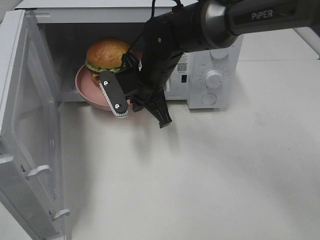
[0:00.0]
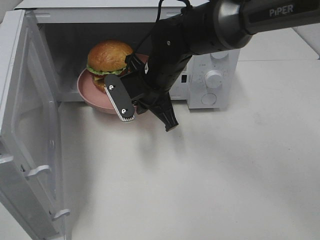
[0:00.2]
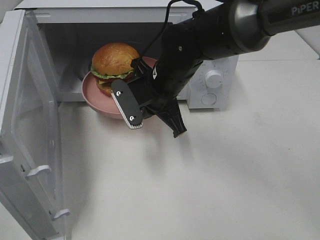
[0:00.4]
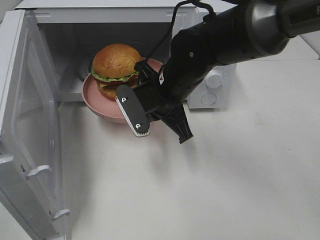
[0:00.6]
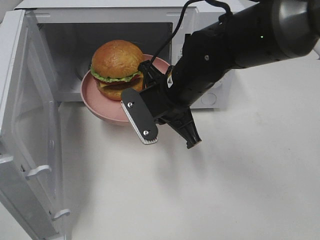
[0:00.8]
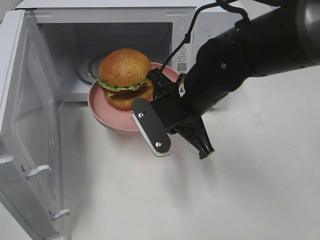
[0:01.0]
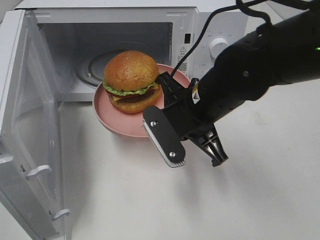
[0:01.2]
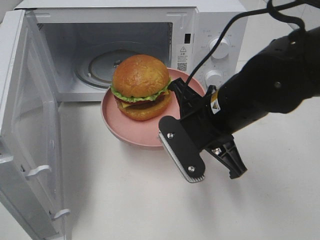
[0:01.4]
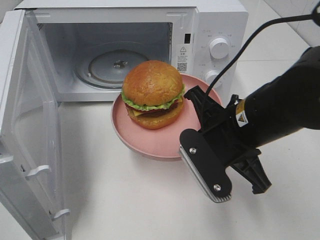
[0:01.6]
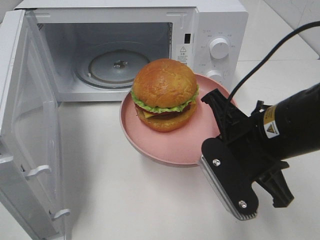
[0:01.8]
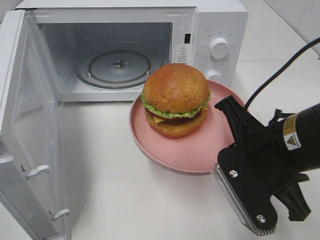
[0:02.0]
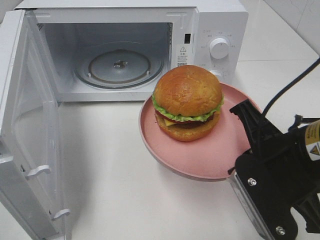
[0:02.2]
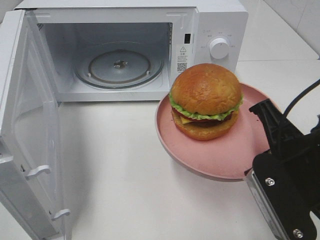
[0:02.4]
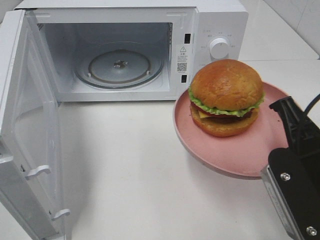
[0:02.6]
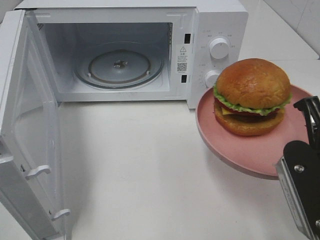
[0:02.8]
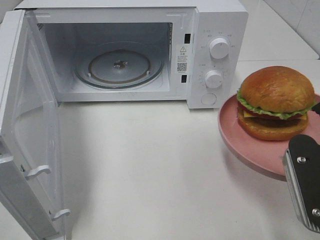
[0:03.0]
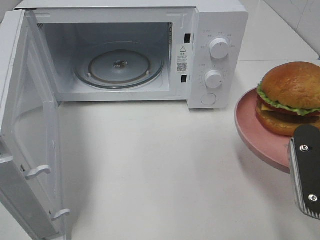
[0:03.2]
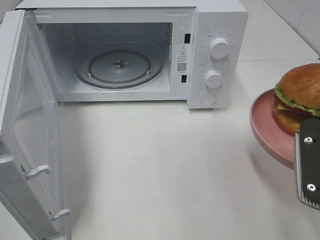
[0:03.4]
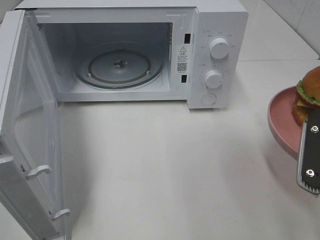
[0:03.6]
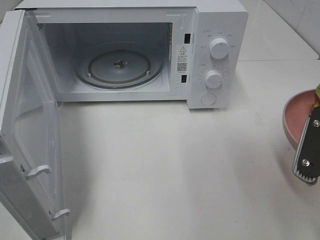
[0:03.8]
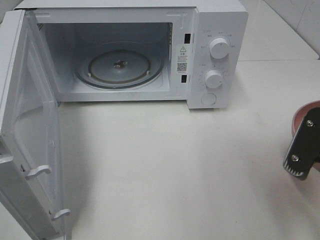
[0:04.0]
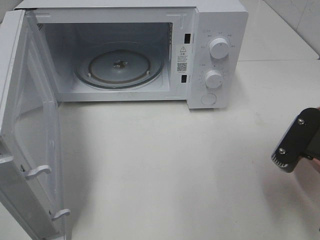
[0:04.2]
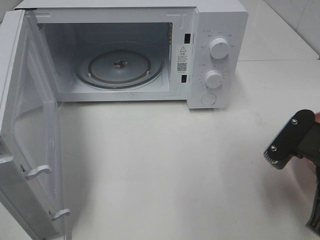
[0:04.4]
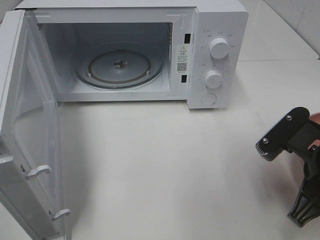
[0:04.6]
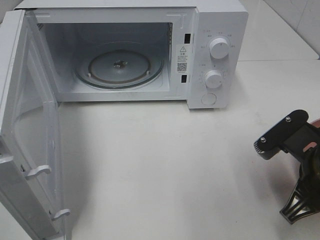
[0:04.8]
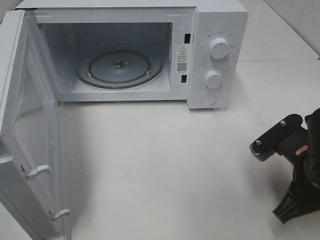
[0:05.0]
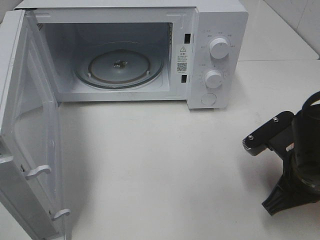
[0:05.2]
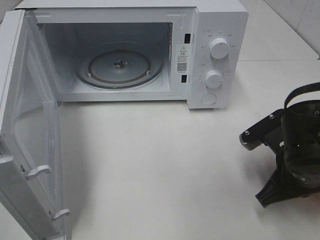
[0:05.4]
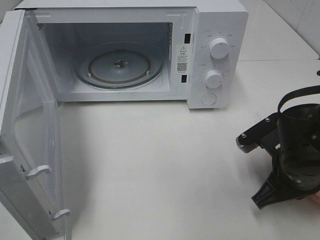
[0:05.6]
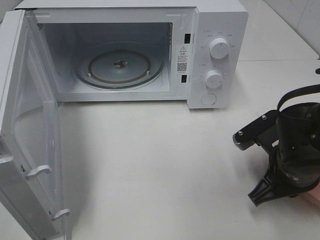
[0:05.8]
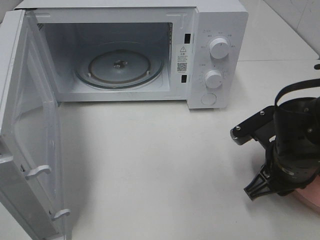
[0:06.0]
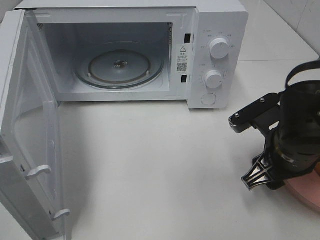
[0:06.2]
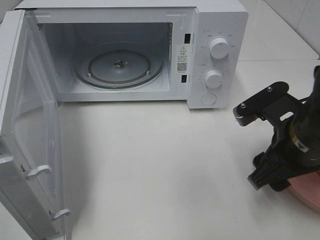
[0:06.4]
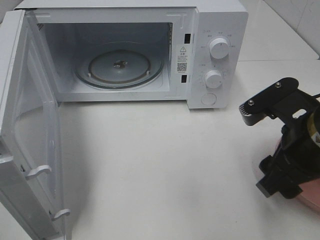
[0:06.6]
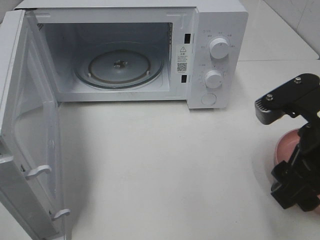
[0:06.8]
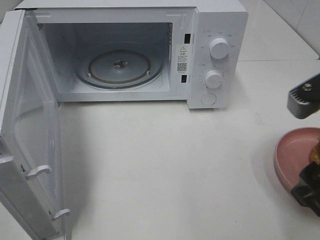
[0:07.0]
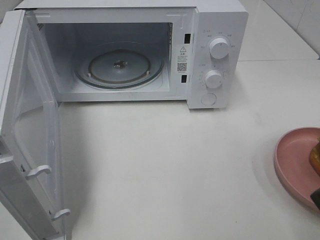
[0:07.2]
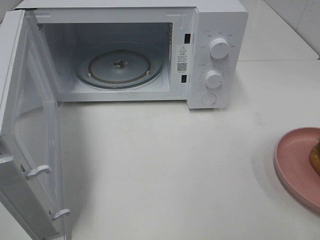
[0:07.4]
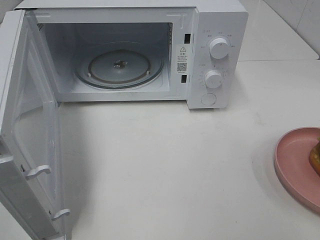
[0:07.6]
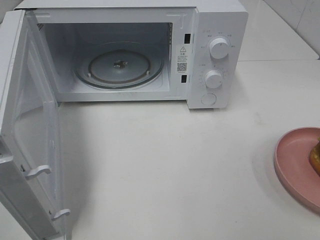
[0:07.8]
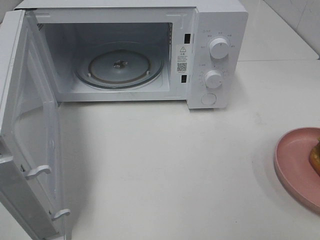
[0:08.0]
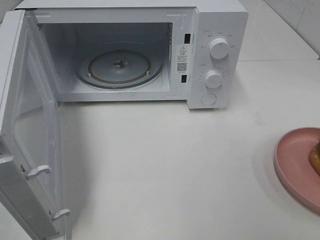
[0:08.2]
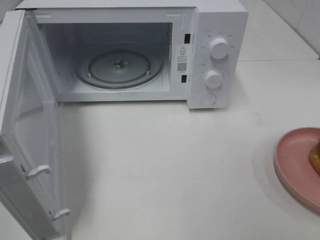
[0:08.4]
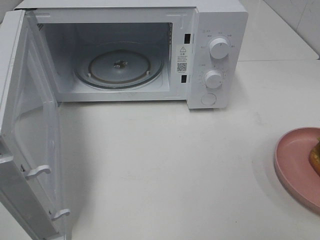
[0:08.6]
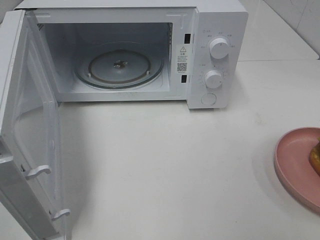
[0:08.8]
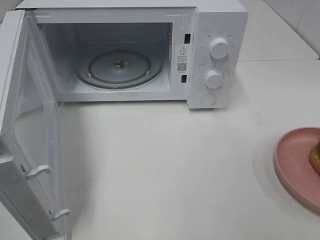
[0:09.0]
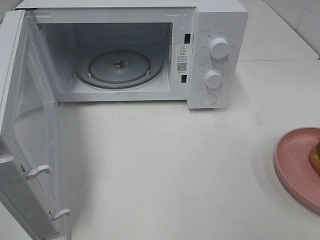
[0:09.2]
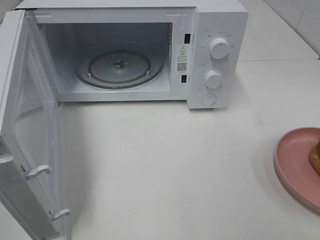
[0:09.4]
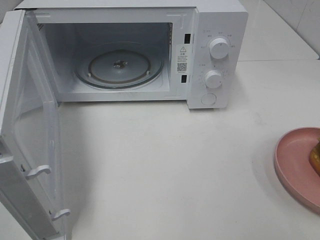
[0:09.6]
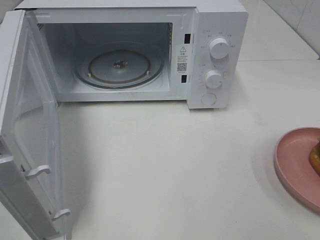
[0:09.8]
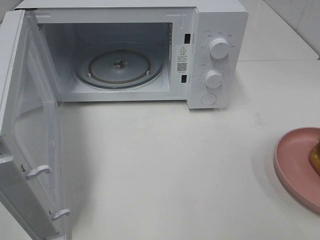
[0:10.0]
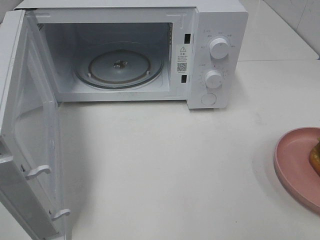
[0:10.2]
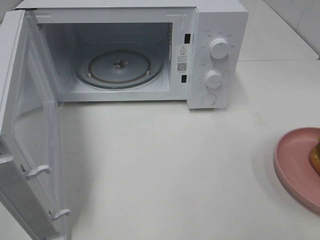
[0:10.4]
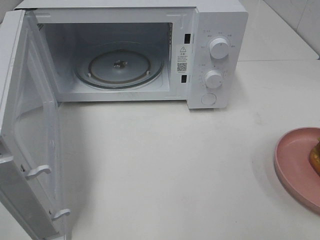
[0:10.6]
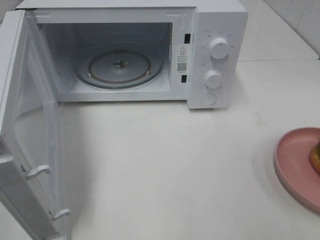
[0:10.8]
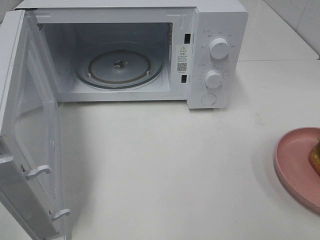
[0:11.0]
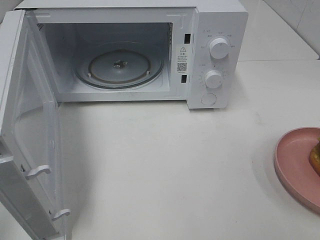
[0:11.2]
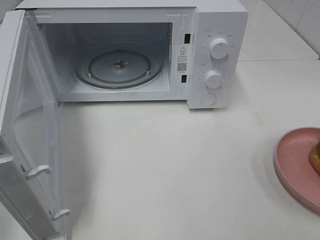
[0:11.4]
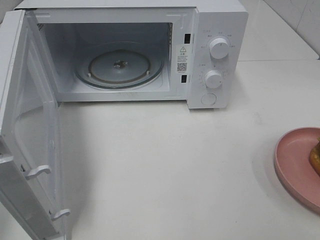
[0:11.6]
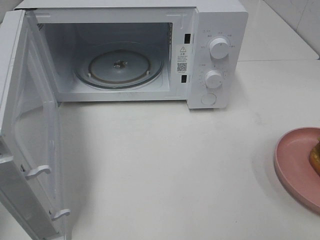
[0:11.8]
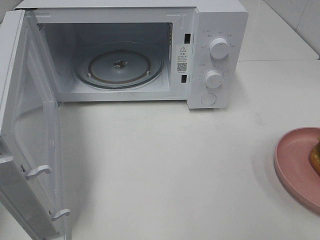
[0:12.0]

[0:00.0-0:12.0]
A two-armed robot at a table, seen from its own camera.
Task of the whole recording: Heat the burger.
Step, 0.0 to 6.0 s: Right hand: place the plate on the table.
0.0 to 1.6 s: The right gripper moves backward and to the right, approximately 20 cm.
1.6 to 3.0 s: The right gripper goes about 15 cm to the right and backward.
3.0 to 4.4 s: The right gripper moves some 5 cm.
4.4 to 6.0 s: The right gripper heads downward and forward, covering some 10 cm, and opens up.
6.0 to 7.6 s: The right gripper is displaced upward, backward and to the right by about 25 cm, and opens up.
9.0 to 10.4 s: Neither gripper changes place.

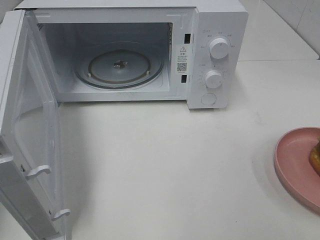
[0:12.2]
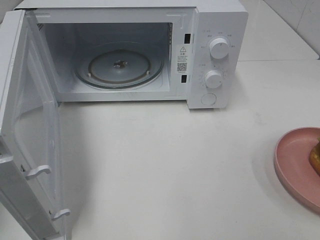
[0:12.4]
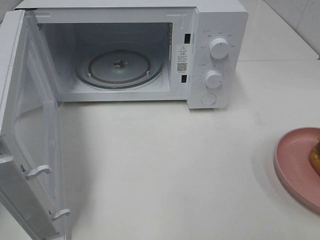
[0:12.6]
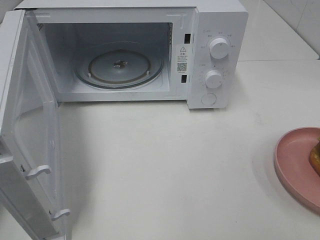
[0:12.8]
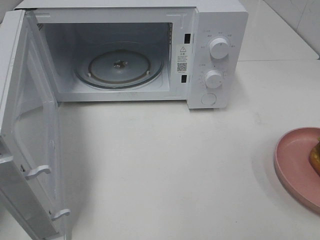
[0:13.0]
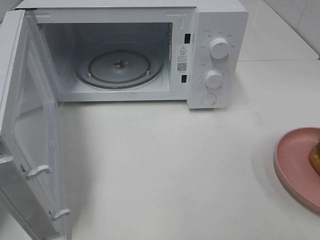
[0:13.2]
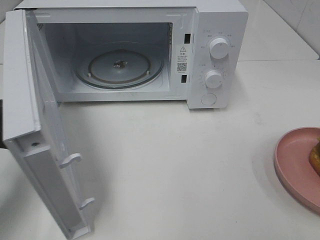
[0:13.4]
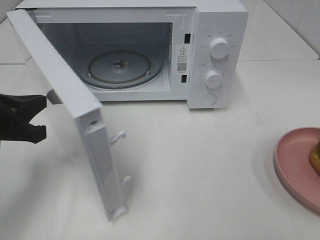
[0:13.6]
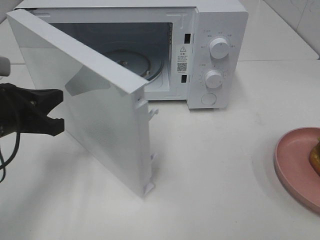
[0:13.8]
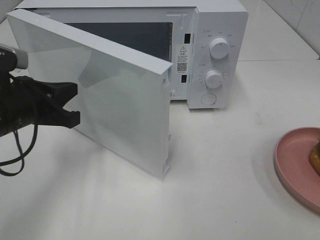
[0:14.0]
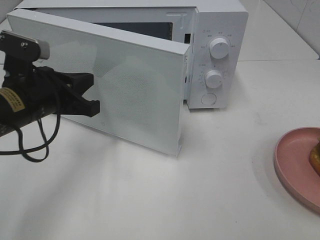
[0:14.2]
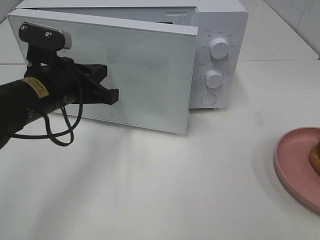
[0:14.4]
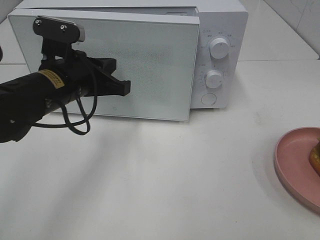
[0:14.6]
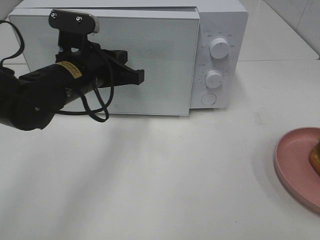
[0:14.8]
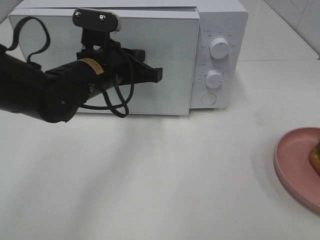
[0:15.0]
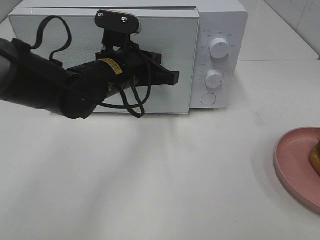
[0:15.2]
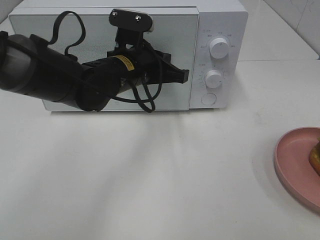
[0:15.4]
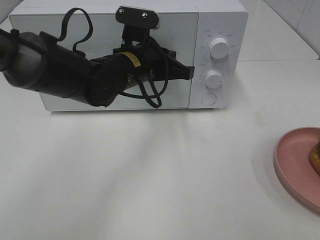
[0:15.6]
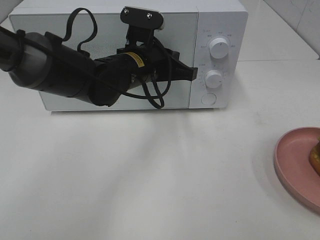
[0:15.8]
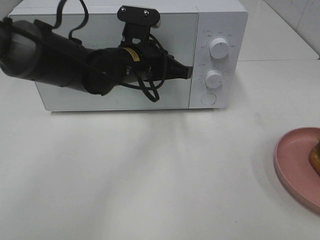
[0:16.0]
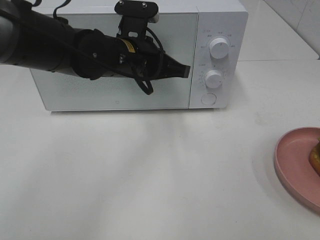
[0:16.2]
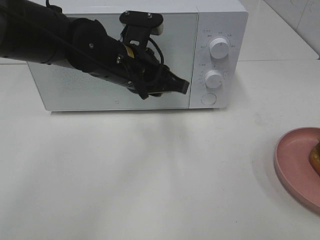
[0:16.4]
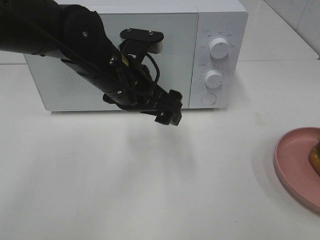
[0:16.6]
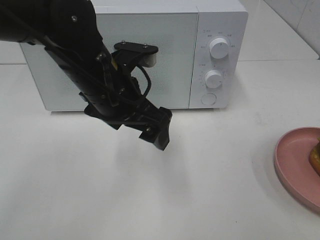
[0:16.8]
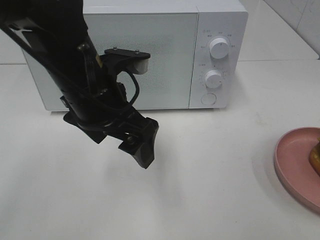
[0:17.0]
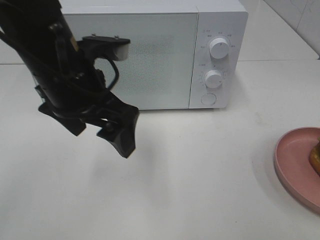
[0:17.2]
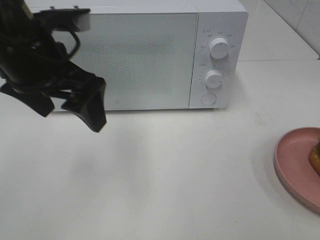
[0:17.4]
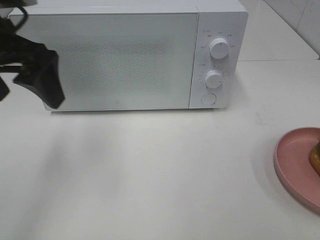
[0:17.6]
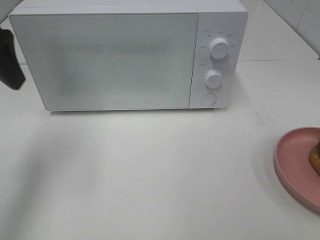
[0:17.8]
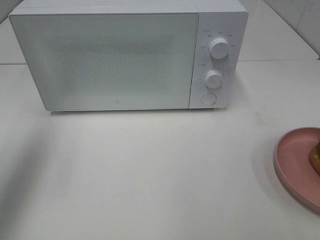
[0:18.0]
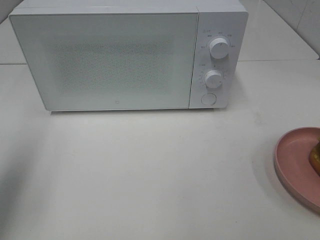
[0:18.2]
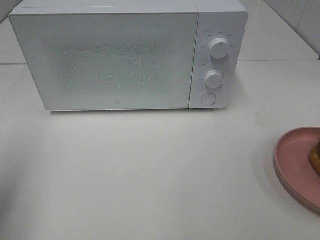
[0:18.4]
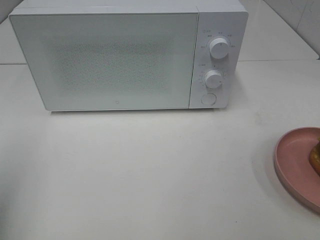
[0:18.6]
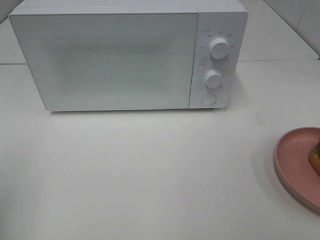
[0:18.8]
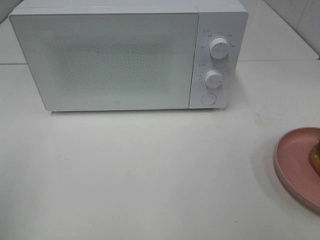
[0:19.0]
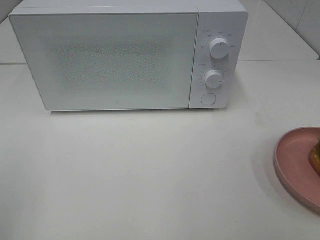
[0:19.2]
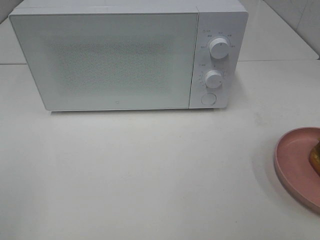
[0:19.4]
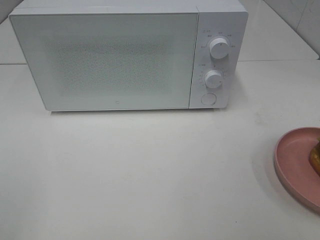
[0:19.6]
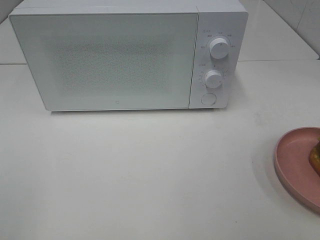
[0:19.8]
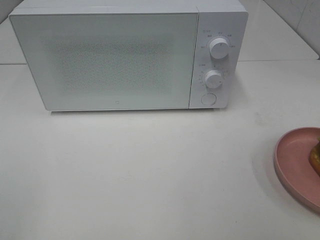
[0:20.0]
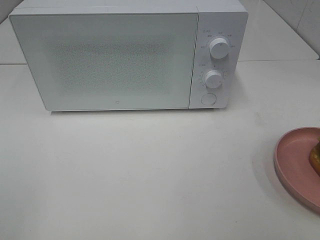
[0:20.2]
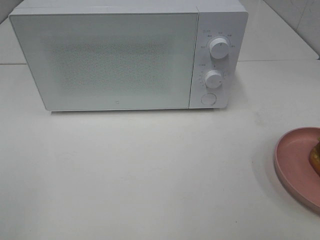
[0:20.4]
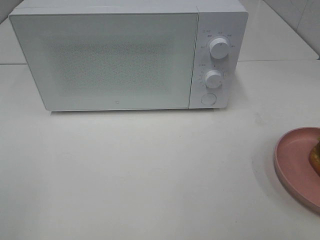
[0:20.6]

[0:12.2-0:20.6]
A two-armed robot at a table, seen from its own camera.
Task of the whole recording: Heat the burger.
Step, 12.2 to 16.0 s: Left hand: close the microwave door.
12.2 to 13.6 s: The left gripper shifts roughly 15 cm forward, to the right and downward.
13.6 to 15.0 s: The left gripper moves to the right and forward, roughly 20 cm.
16.4 to 17.8 s: The left gripper shifts some 25 cm to the left and upward, and opens its fingers.
17.8 to 19.2 s: The left gripper goes approximately 20 cm backward.

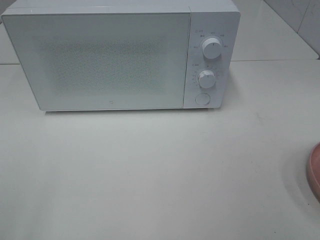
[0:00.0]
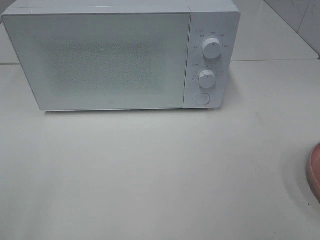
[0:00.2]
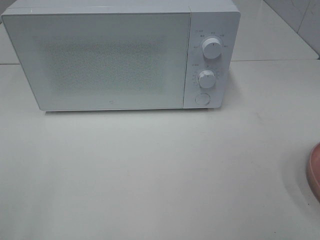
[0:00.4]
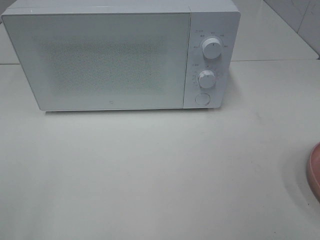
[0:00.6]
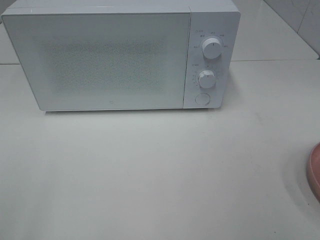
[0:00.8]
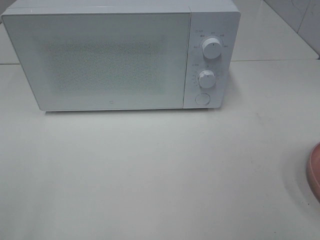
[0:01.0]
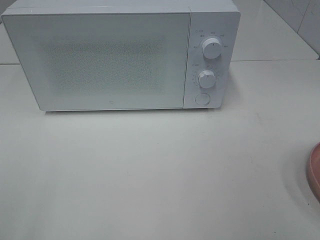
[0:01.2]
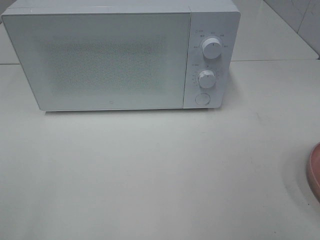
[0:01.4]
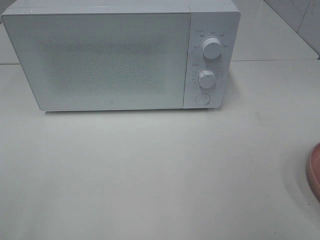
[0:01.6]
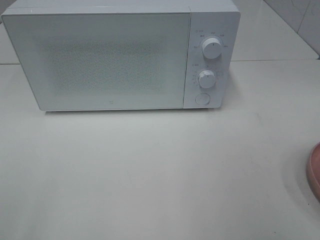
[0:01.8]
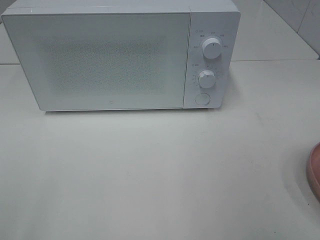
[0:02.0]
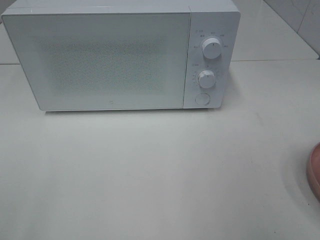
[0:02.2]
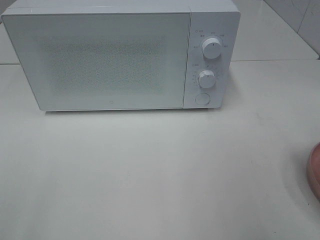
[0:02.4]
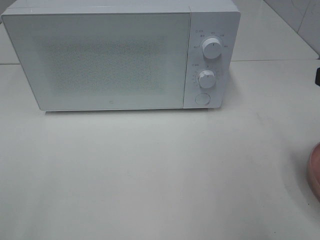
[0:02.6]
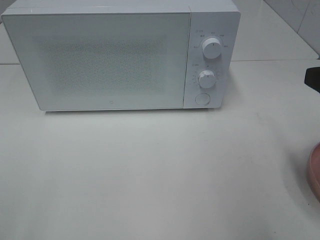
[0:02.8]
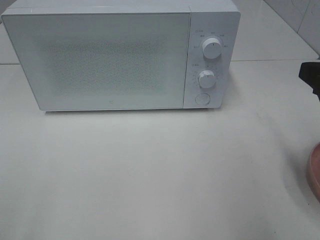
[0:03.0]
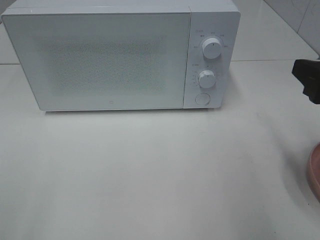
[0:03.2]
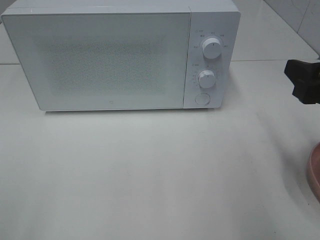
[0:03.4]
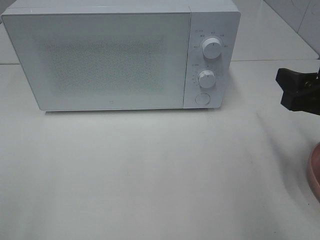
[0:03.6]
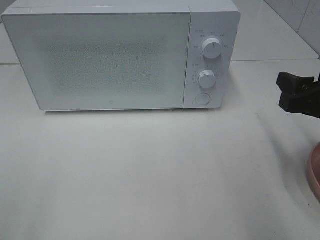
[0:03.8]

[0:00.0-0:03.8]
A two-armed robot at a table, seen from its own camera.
Task of the whole recording: Heat the burger.
2.6 to 3.8 s: The right gripper heads downward and forward, covering roughly 10 cm.
